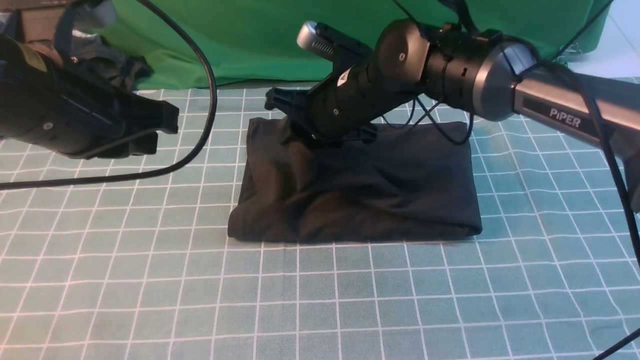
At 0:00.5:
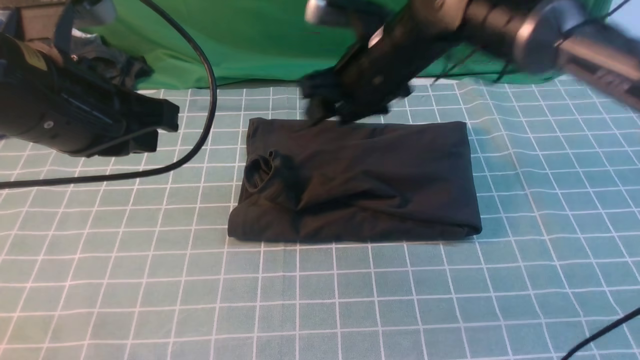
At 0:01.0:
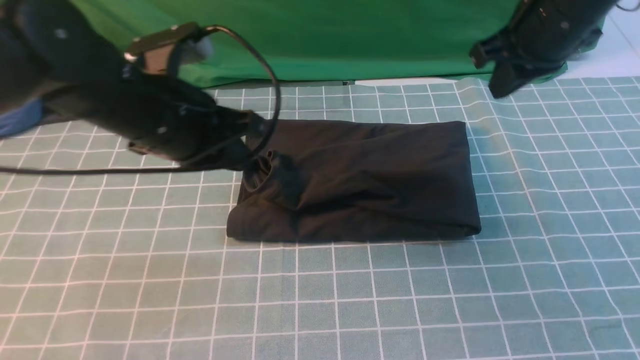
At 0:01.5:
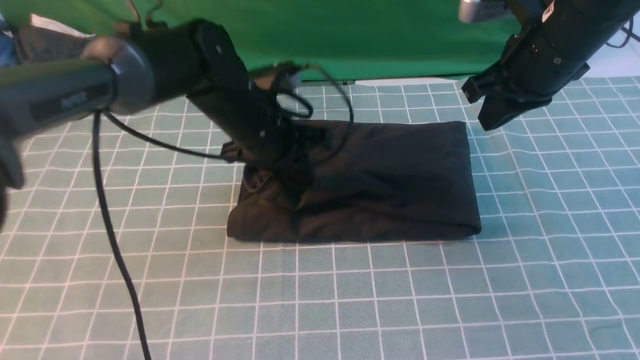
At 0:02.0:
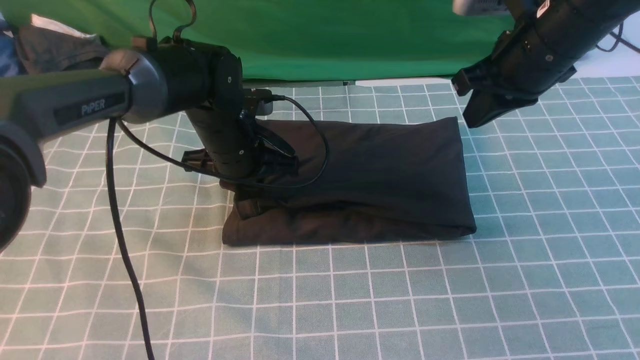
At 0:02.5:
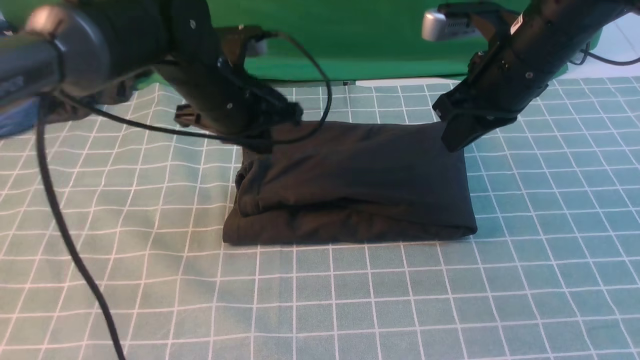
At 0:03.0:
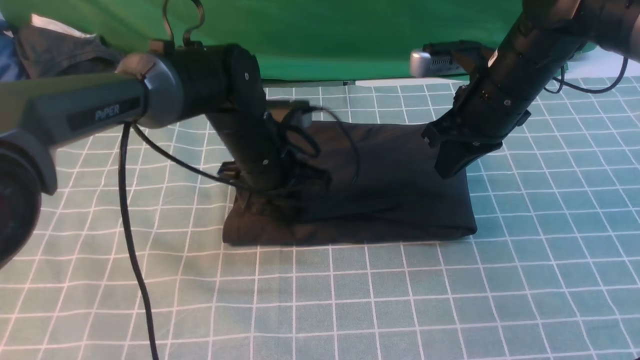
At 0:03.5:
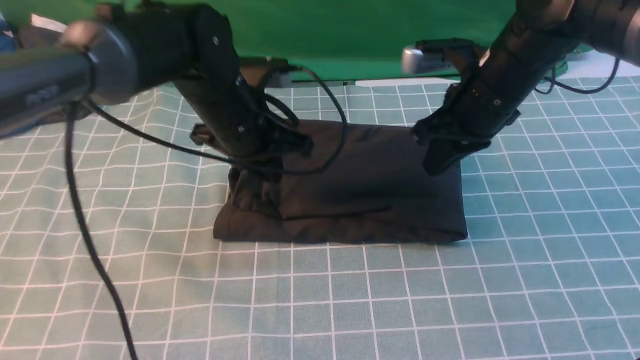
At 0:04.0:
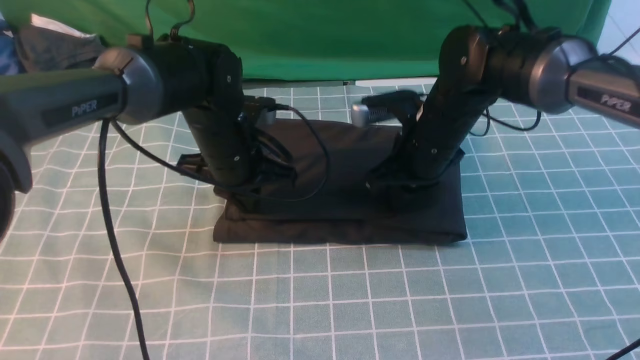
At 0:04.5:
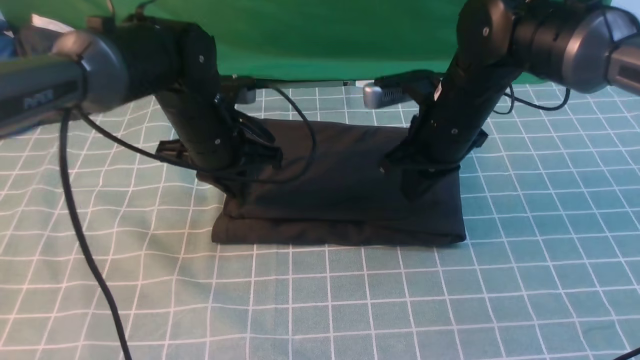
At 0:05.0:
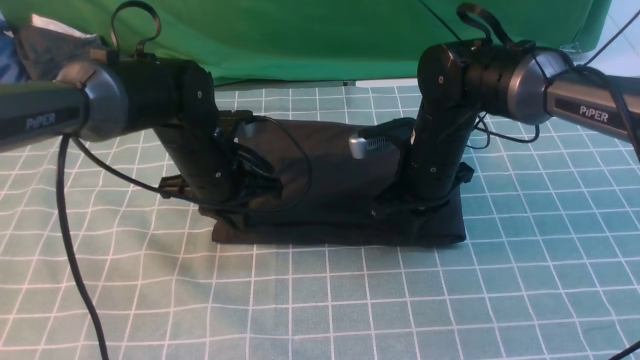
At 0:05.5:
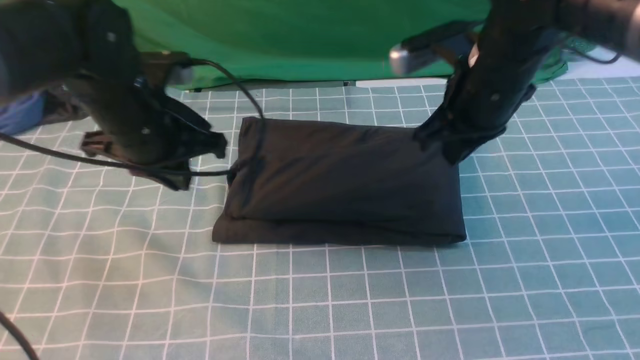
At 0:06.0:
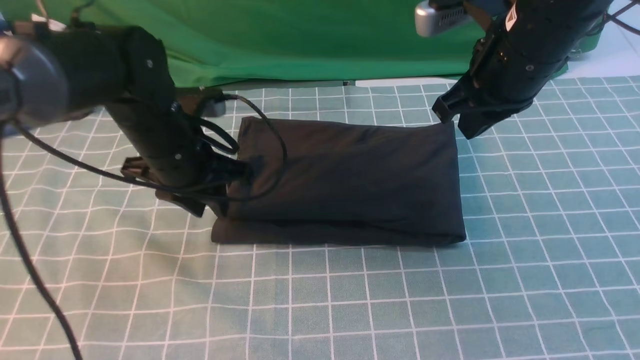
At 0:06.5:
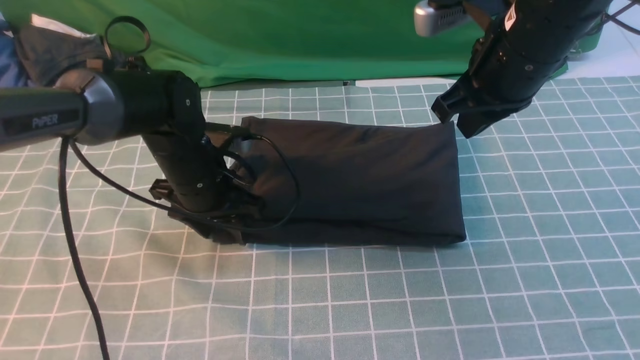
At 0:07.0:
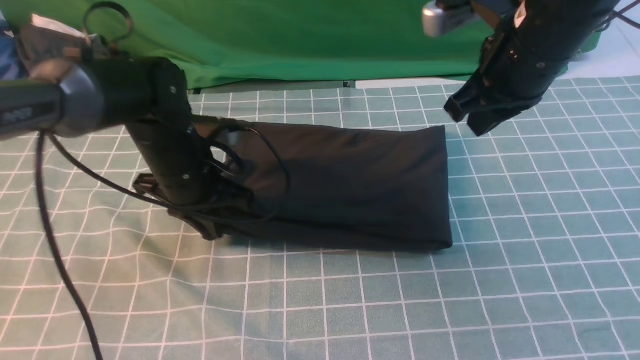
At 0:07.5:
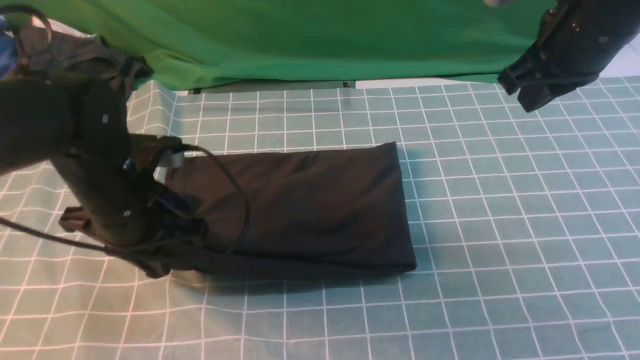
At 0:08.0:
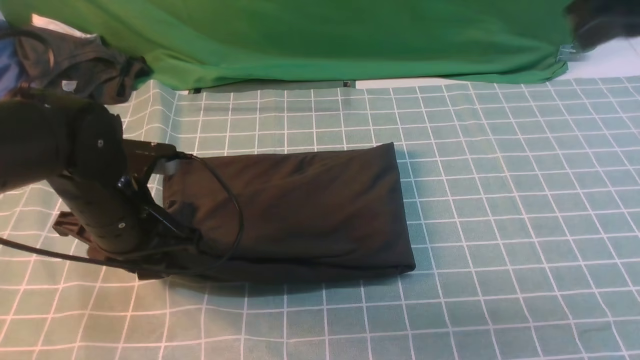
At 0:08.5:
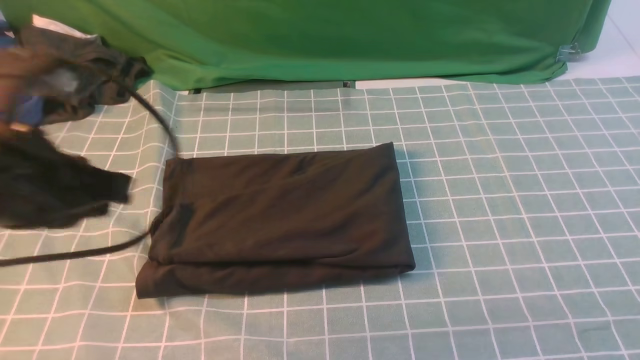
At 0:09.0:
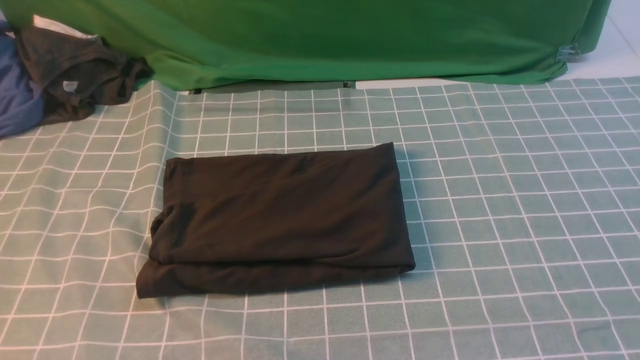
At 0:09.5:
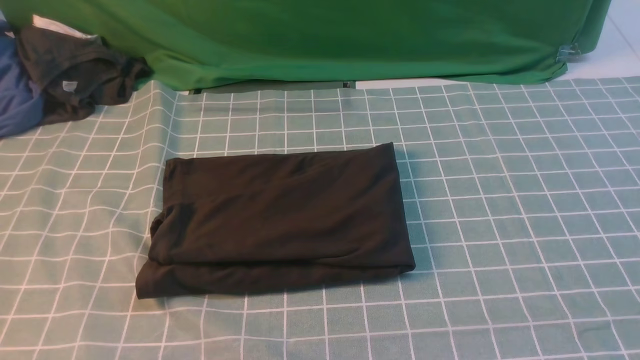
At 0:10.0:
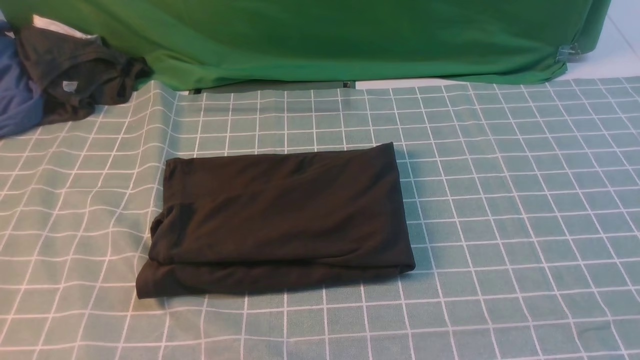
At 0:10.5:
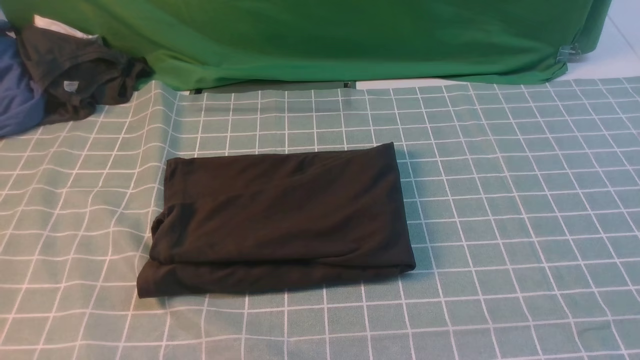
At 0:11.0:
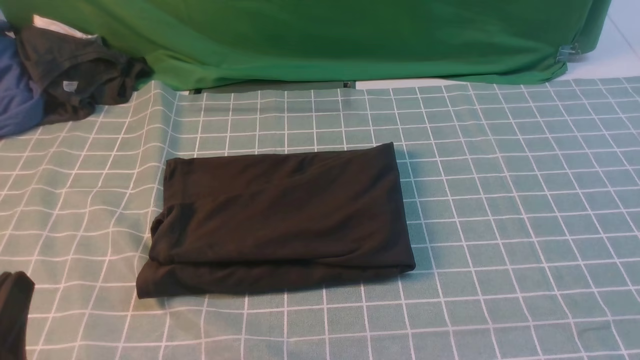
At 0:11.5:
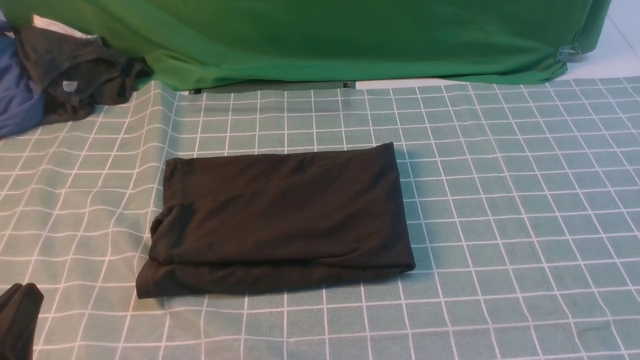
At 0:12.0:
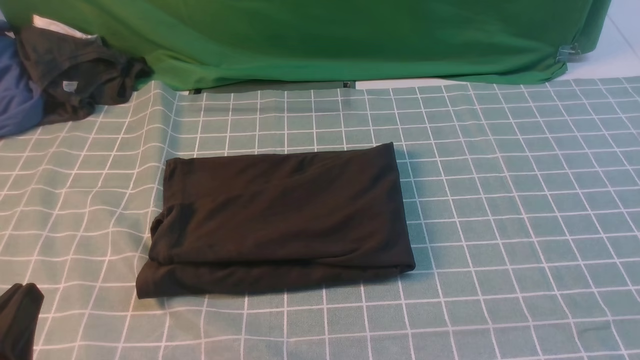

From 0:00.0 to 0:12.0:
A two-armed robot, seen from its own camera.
From 0:00.0 to 0:02.0: The right gripper heads to the right and upward, covering about 20 cm, and closes up. Meanwhile the left gripper moves downward, forward and to the right, approximately 25 cm.
From 0:02.0 to 0:04.0: The right gripper moves downward and to the left, about 15 cm.
From 0:04.0 to 0:06.0: The left gripper opens up. Meanwhile the right gripper is displaced upward by some 15 cm.
From 0:06.0 to 0:08.0: The left gripper heads backward, covering about 10 cm, and closes and opens again. Meanwhile the right gripper heads upward, to the right and backward, covering approximately 15 cm.
From 0:08.0 to 0:10.0: The right gripper heads backward, covering about 30 cm, while the left gripper travels backward and upward by about 25 cm, and closes up.
From 0:10.0 to 0:12.0: The left gripper travels downward by about 15 cm.

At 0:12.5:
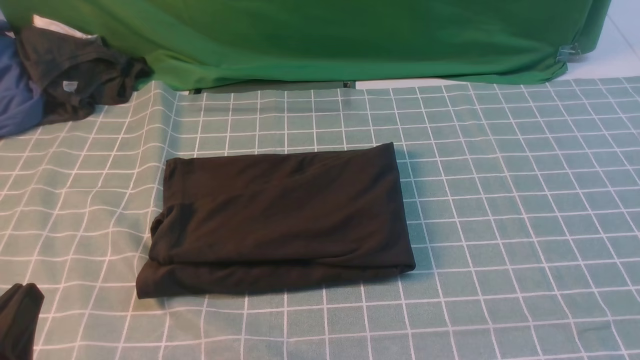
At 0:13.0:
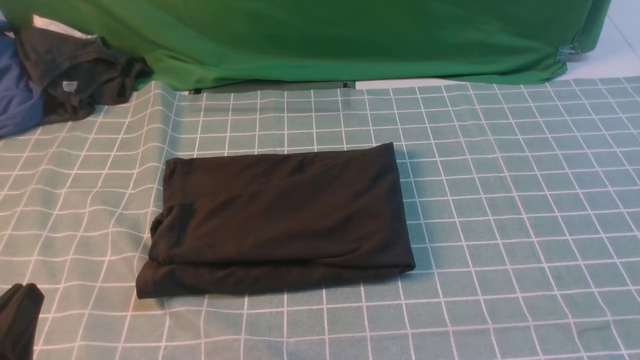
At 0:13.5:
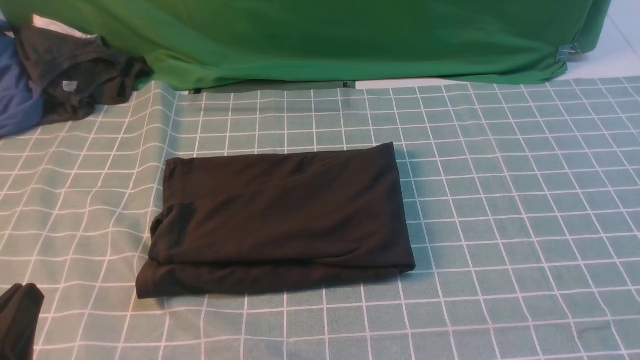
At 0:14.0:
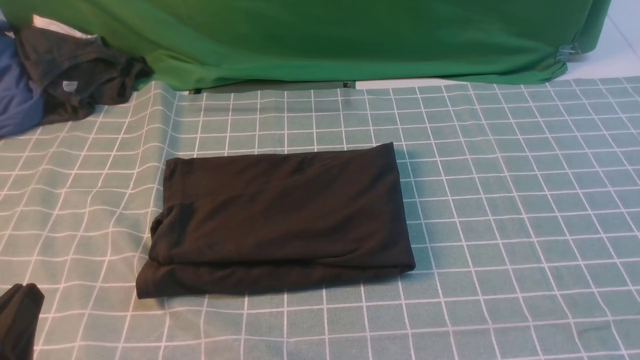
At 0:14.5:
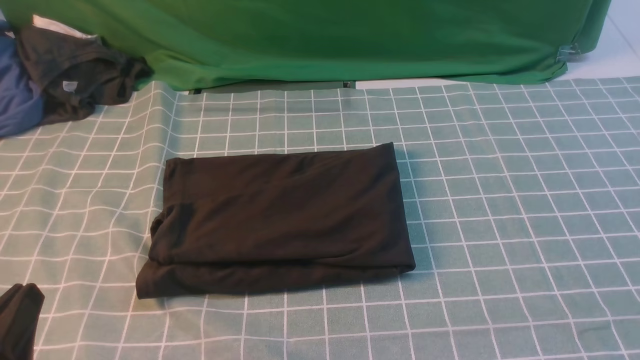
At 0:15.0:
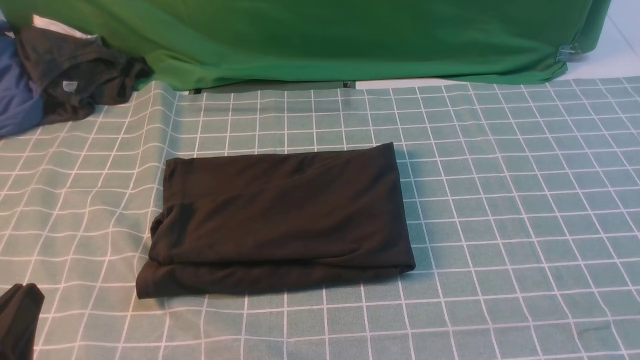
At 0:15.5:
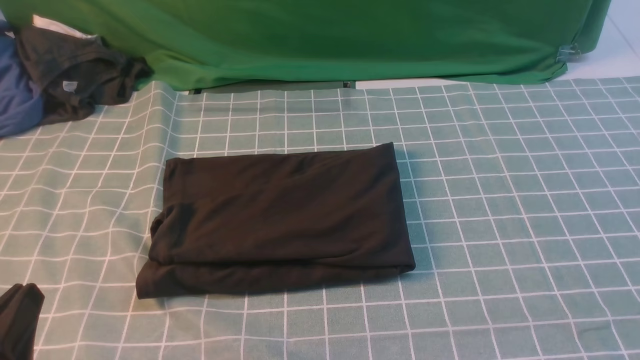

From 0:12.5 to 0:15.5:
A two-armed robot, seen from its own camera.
From 0:14.0 to 0:15.5: Neither gripper changes place.
